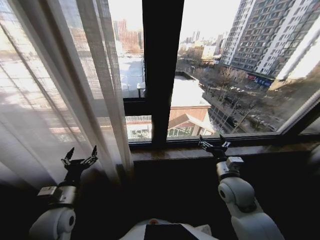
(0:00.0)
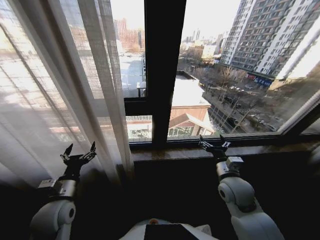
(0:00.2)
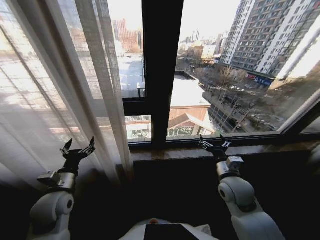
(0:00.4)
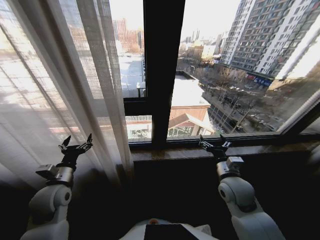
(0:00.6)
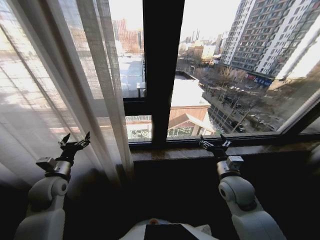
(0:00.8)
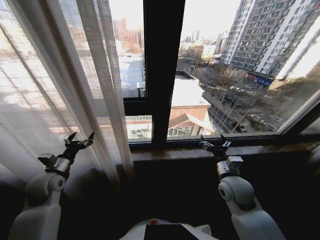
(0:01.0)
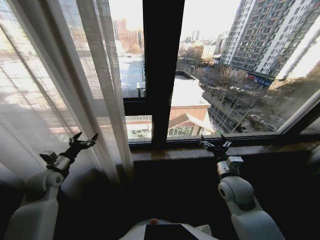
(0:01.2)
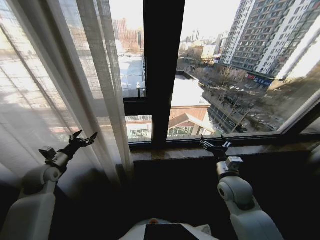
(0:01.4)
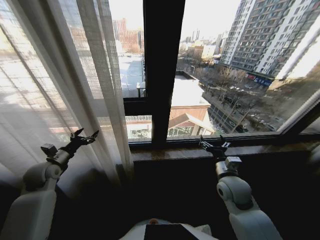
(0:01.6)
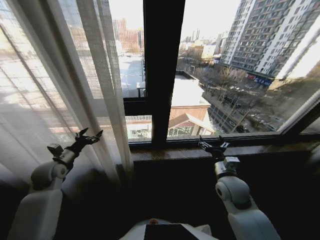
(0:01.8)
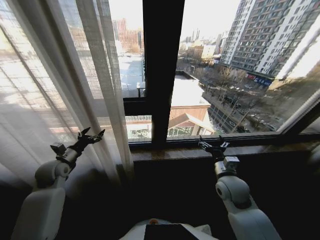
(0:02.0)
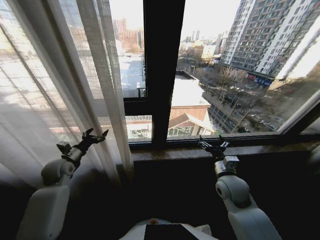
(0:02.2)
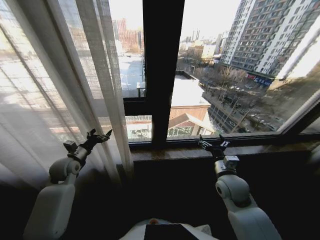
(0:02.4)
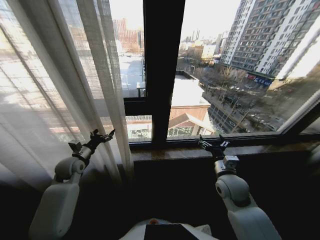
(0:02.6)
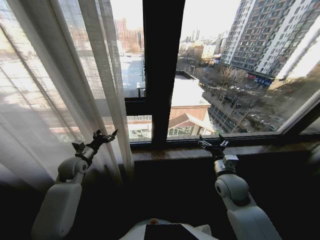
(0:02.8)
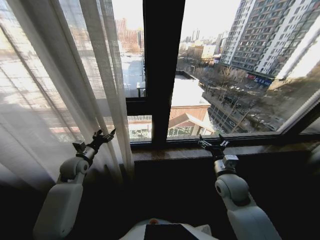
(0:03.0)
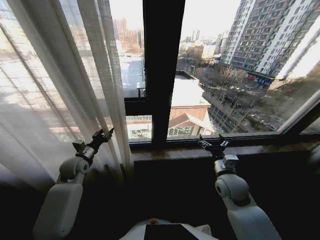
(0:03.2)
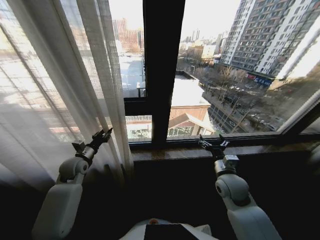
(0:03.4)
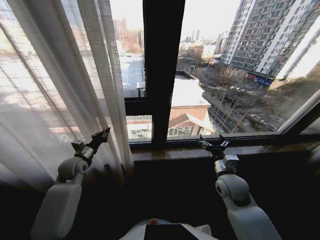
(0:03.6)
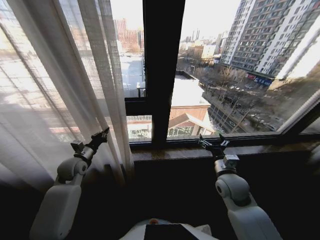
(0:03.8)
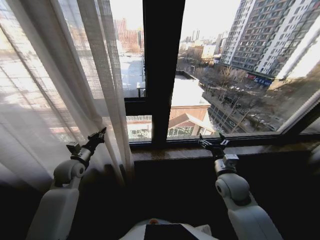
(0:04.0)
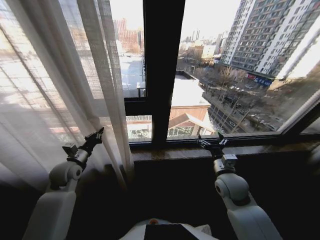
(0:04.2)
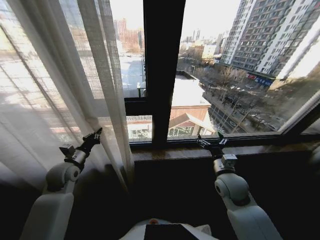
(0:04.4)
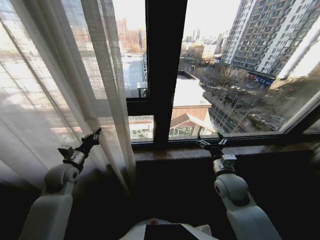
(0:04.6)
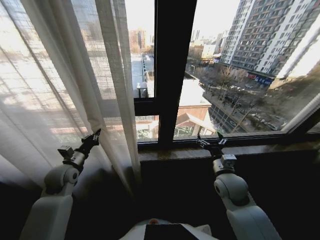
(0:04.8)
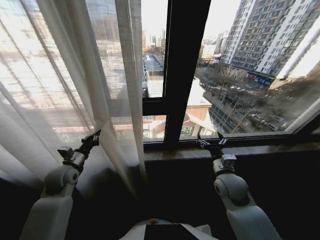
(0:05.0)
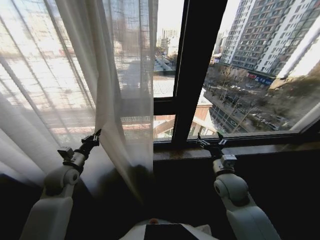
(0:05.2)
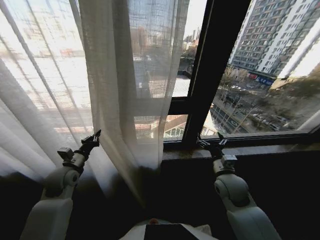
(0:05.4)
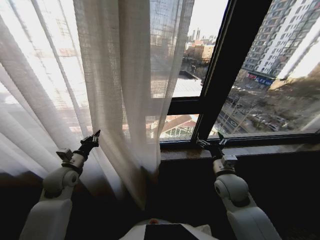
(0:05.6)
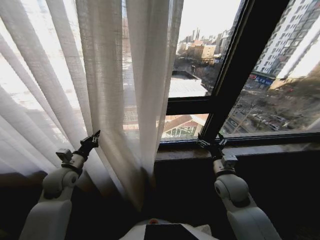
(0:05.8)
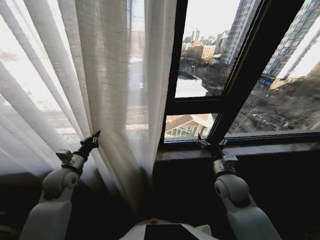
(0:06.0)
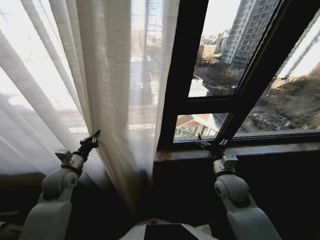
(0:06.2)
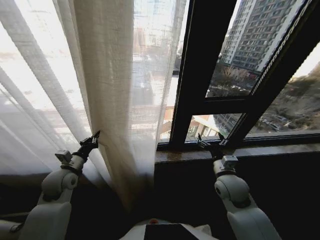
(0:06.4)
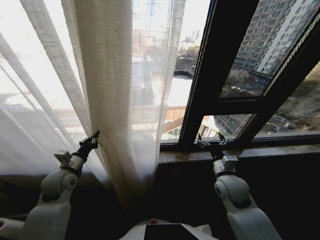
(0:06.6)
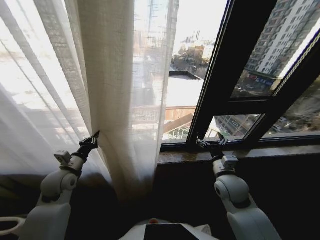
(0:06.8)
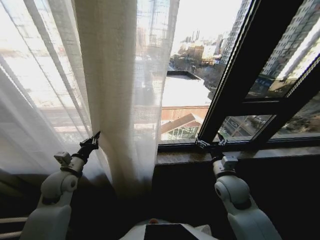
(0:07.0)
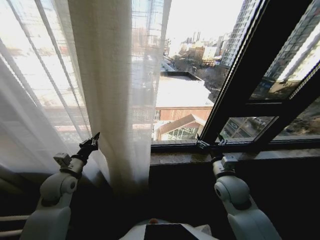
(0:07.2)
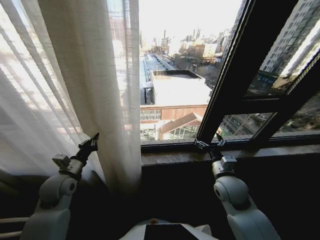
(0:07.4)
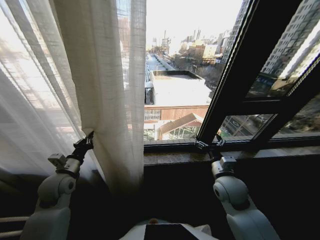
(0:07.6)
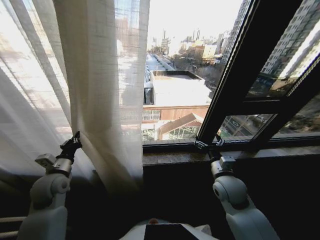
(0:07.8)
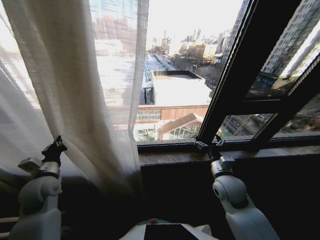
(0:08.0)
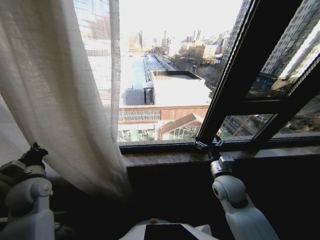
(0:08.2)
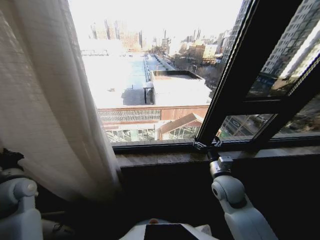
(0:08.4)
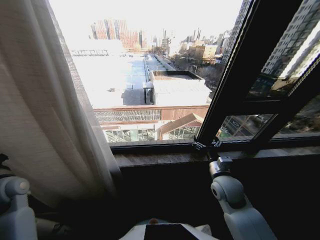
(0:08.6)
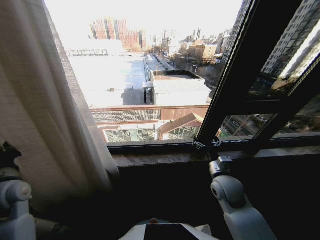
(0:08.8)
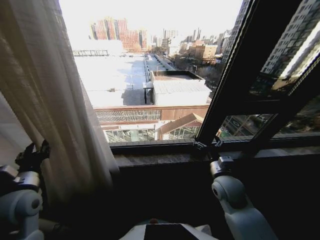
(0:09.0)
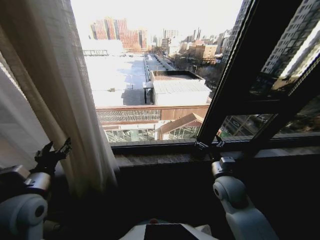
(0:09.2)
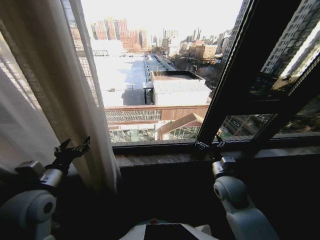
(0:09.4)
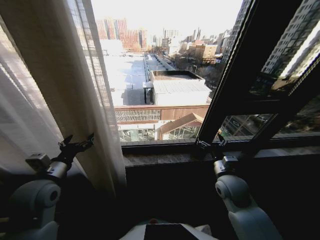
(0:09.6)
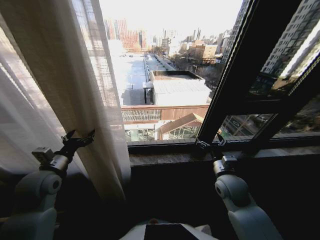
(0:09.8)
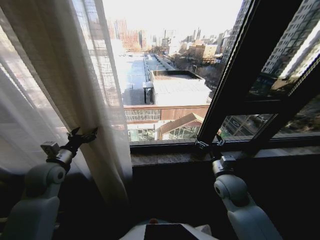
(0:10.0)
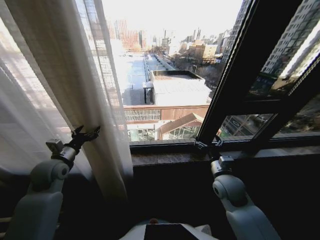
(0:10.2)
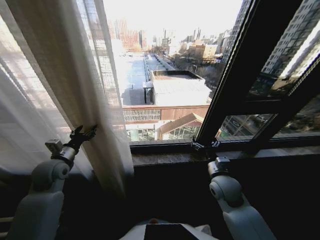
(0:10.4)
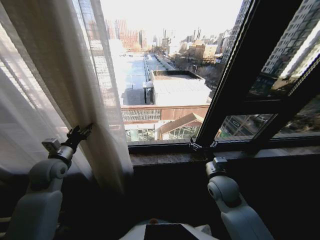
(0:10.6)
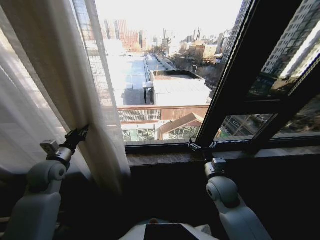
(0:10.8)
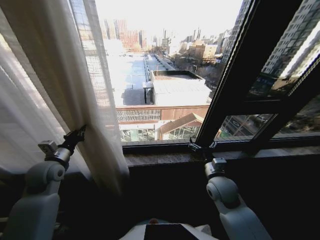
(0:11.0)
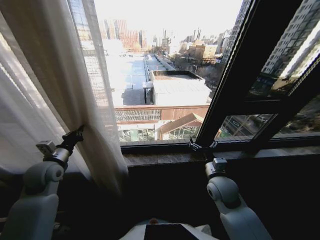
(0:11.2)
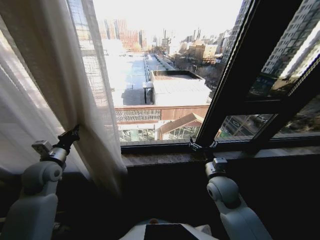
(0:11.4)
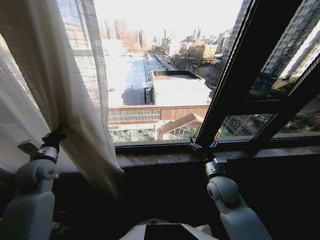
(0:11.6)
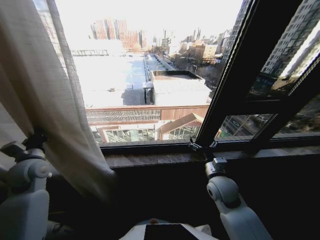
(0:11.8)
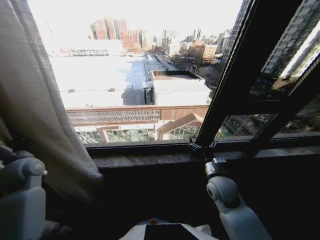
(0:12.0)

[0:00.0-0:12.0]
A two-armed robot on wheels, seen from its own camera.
Task of the whole recording: Open the curtains by pulling them apart, changing their state from closed to fully open.
0:00.0 to 0:01.6: The left gripper shifts about 20 cm forward and to the left.
0:01.6 to 0:03.0: The left gripper shifts about 10 cm to the right.
0:03.0 to 0:04.4: The left gripper closes.
0:07.6 to 0:09.0: The left gripper travels backward and upward by some 10 cm, goes to the left and returns, roughly 10 cm each way, and opens its fingers.
0:09.0 to 0:10.4: The left gripper is displaced forward by roughly 10 cm, and opens.
0:10.4 to 0:12.0: The left gripper travels to the left by some 10 cm, and closes its fingers.

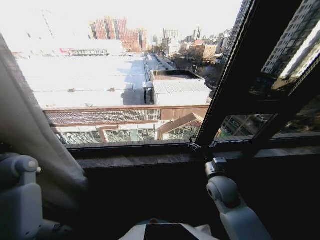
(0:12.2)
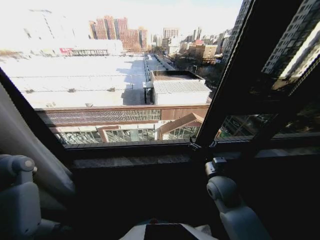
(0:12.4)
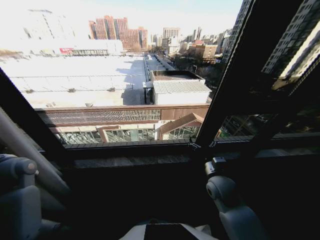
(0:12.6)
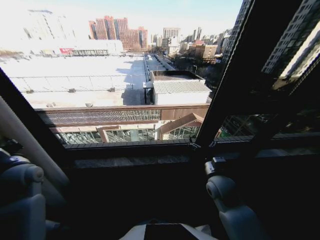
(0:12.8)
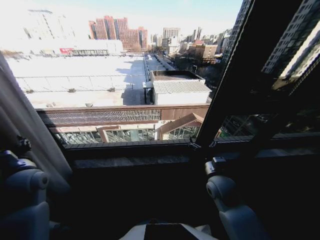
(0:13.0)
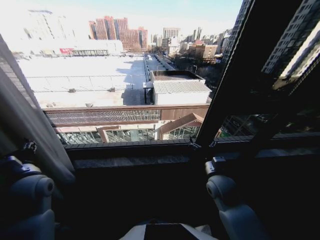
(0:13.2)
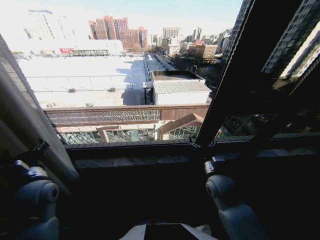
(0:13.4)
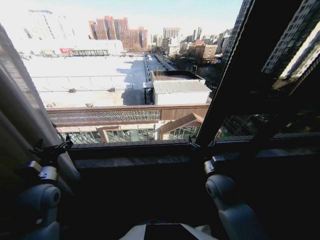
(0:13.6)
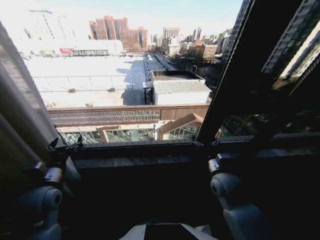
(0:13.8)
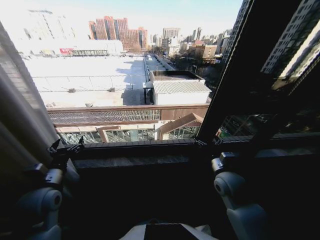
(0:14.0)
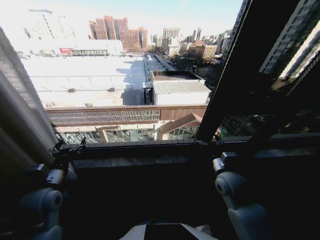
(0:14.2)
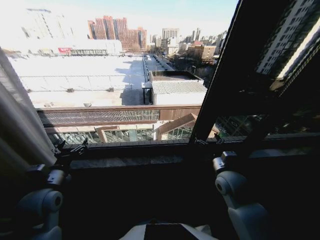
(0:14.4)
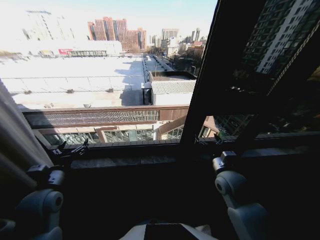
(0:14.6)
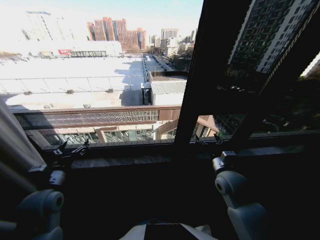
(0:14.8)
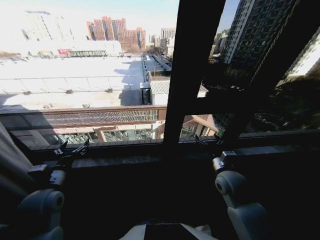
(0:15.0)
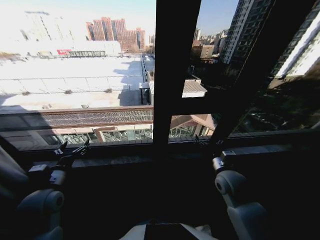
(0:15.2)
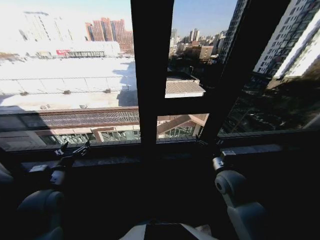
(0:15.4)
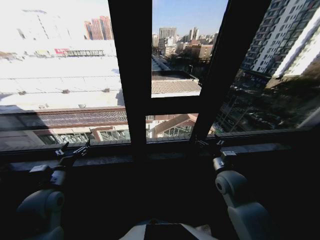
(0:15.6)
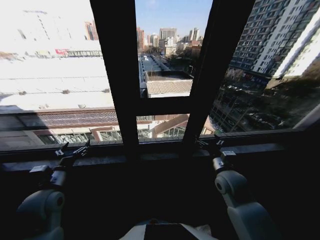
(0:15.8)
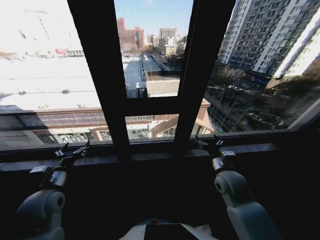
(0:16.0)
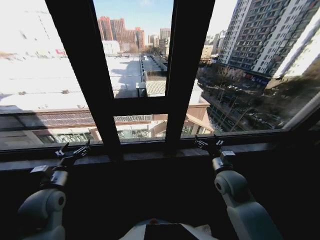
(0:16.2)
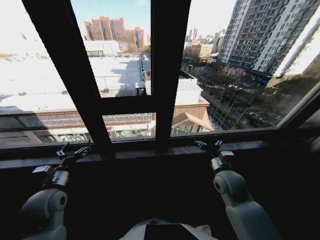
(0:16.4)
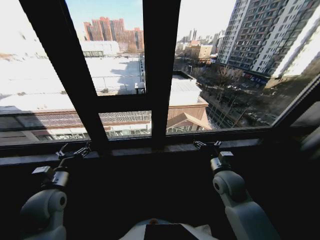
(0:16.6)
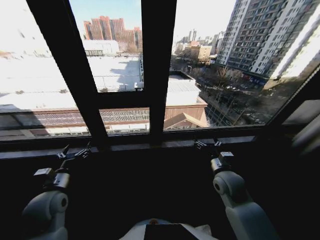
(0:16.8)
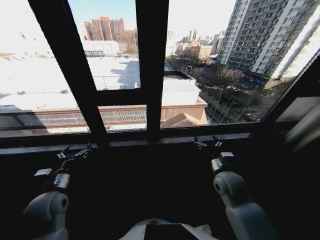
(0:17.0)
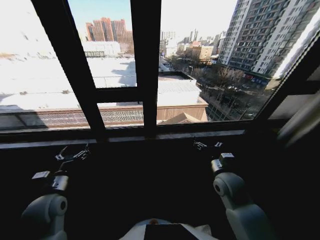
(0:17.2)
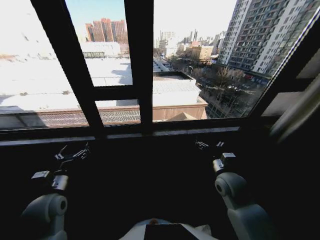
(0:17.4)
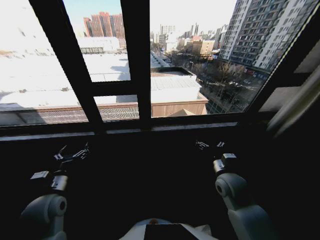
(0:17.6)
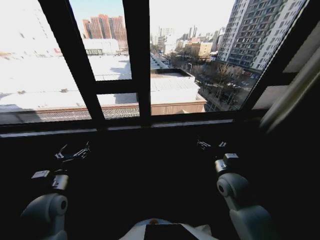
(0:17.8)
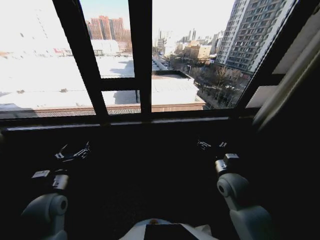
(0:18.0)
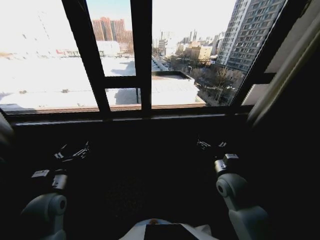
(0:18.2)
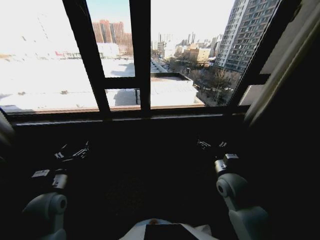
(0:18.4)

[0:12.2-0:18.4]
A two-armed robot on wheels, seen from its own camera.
Task of the whole recording: Open the curtains by pulling them apart, changing their state from closed to fully open.
0:12.2 to 0:13.8: The left gripper is displaced to the right and backward by roughly 15 cm, and opens its fingers.

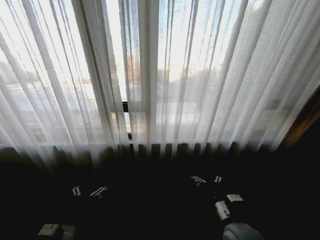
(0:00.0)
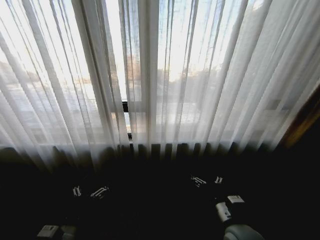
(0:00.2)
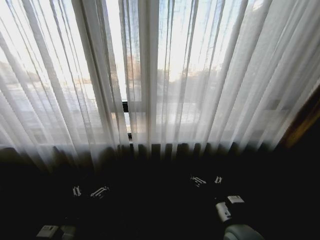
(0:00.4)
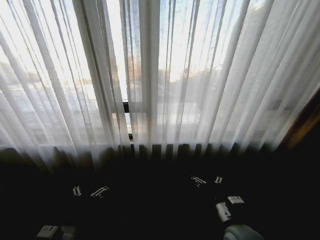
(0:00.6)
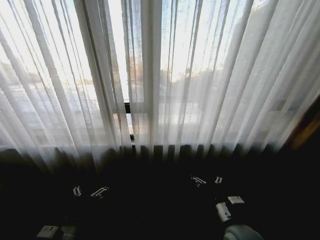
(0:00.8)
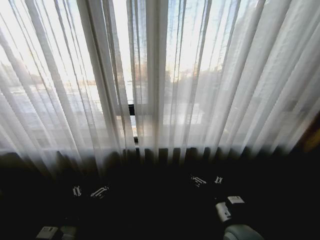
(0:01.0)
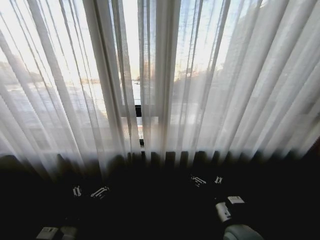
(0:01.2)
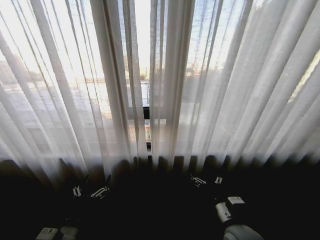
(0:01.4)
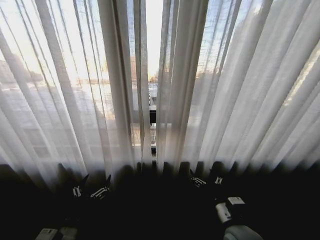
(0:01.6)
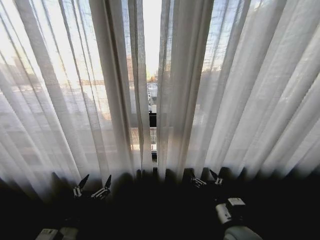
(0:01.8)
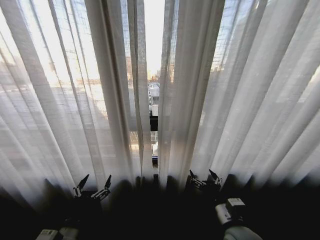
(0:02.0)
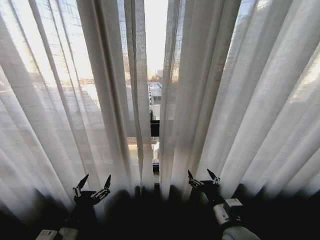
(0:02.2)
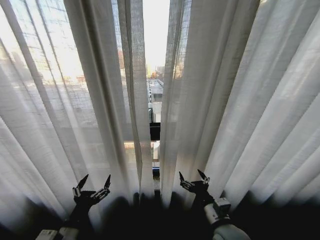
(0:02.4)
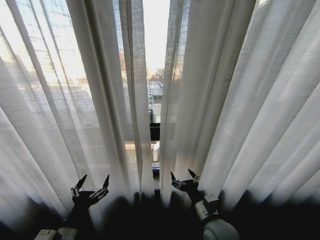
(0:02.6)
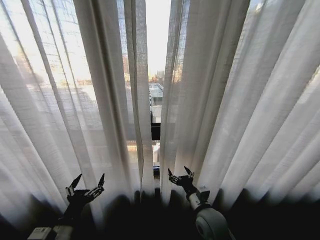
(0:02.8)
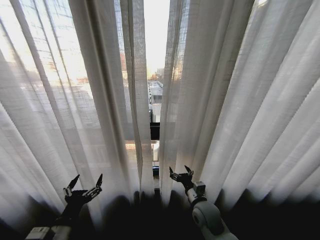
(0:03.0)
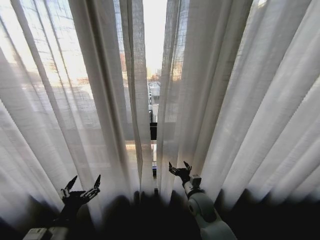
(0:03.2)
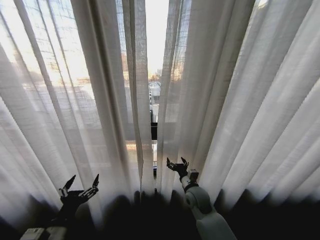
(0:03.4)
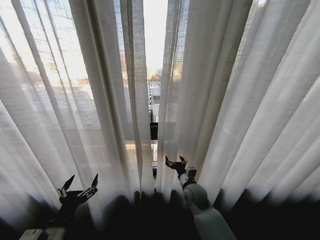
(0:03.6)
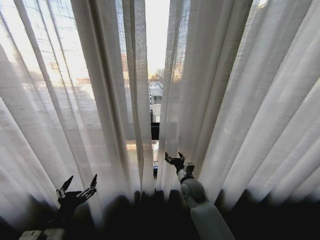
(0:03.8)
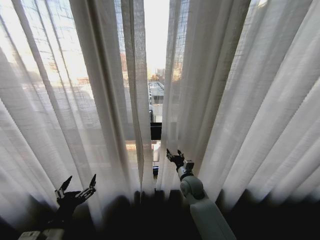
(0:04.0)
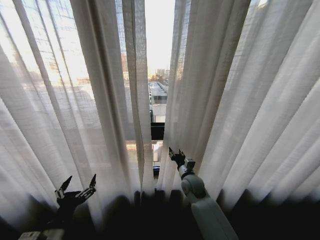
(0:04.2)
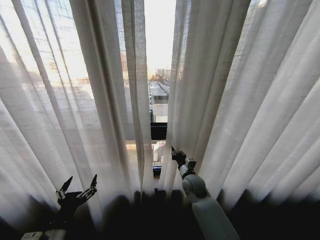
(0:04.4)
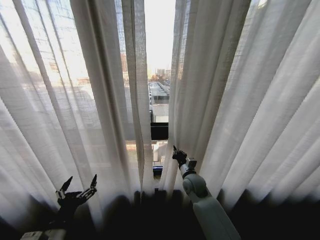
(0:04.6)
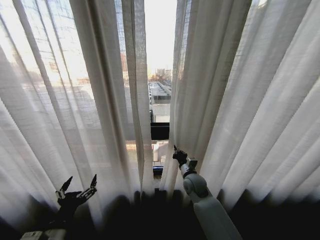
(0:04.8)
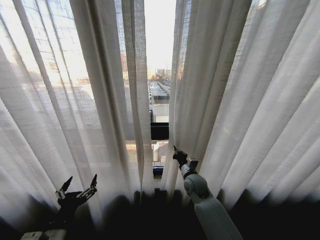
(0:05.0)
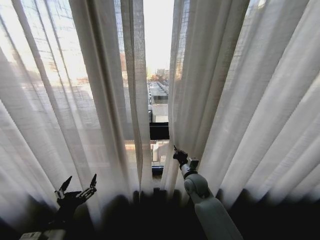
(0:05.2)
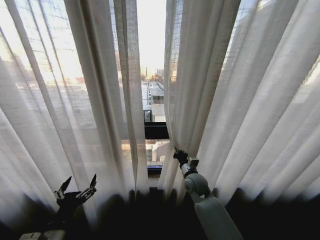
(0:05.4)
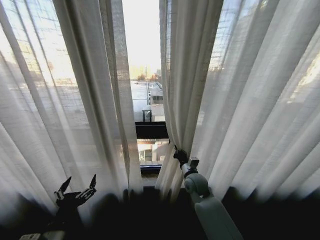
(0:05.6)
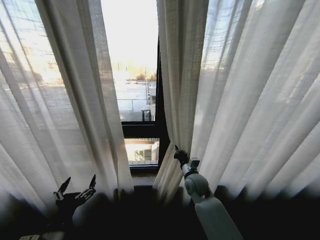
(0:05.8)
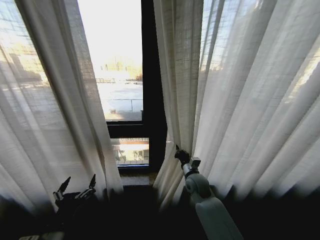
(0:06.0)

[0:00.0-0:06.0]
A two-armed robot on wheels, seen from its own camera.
Task of the whole recording: Open the curtains by pulling them apart, changing their state from closed to fully open.
0:01.6 to 0:03.0: The right gripper goes roughly 10 cm forward and downward.
0:03.0 to 0:04.4: The right gripper heads forward, covering about 10 cm, and closes its fingers.
